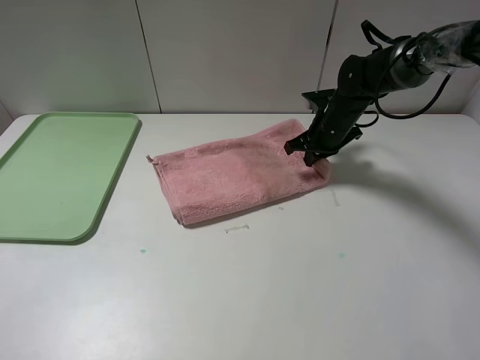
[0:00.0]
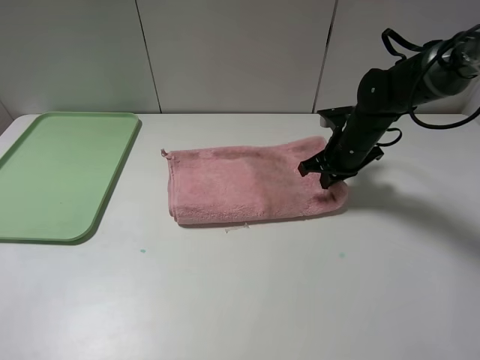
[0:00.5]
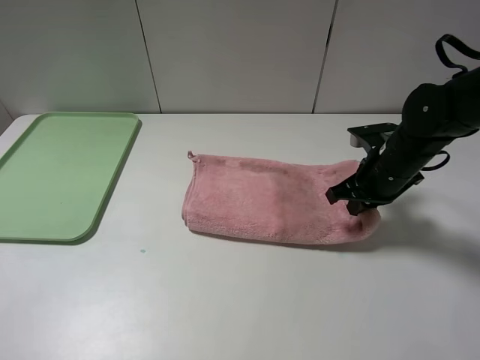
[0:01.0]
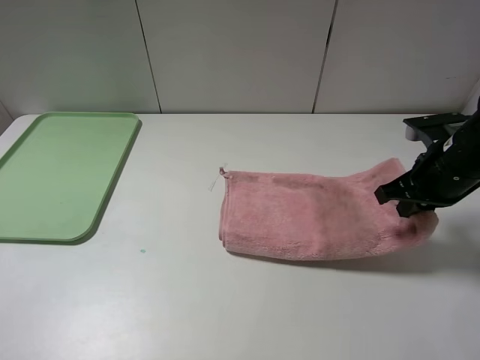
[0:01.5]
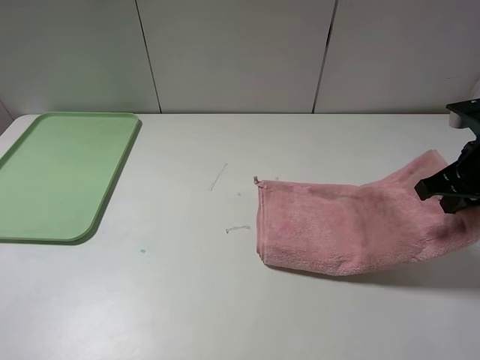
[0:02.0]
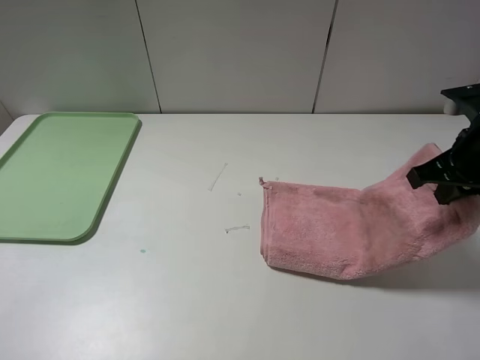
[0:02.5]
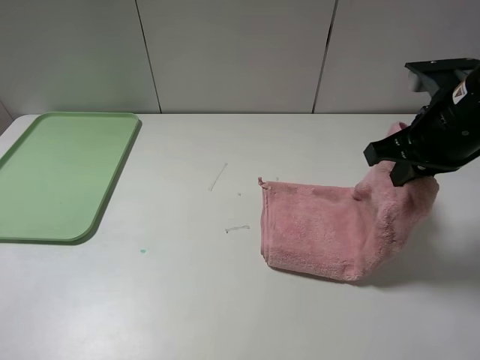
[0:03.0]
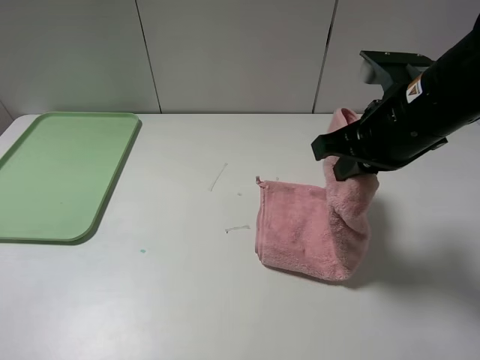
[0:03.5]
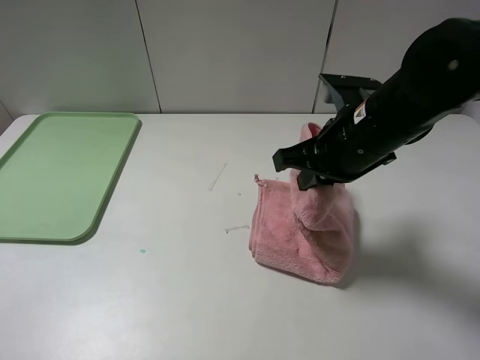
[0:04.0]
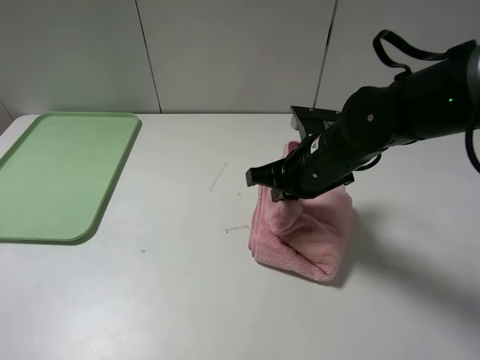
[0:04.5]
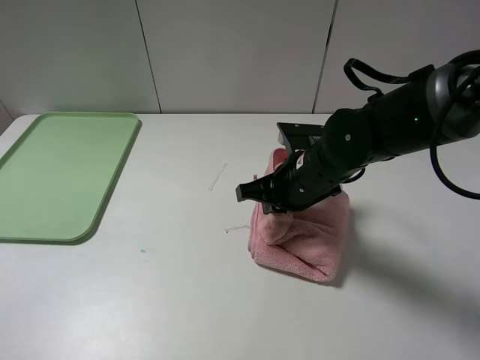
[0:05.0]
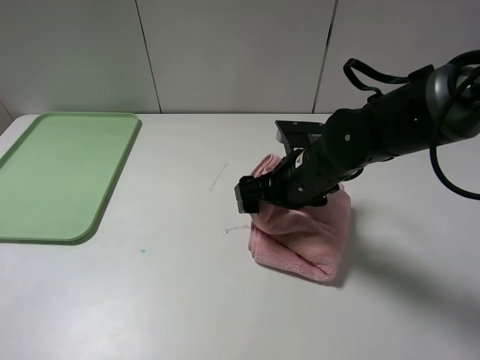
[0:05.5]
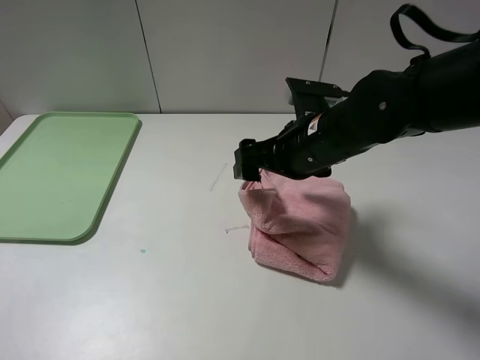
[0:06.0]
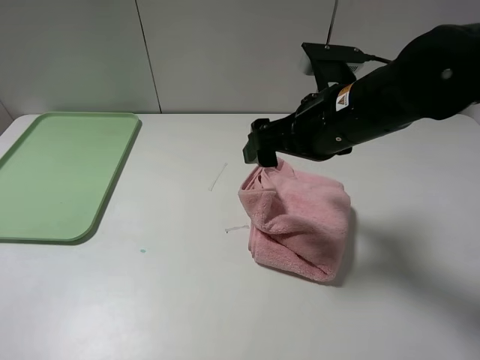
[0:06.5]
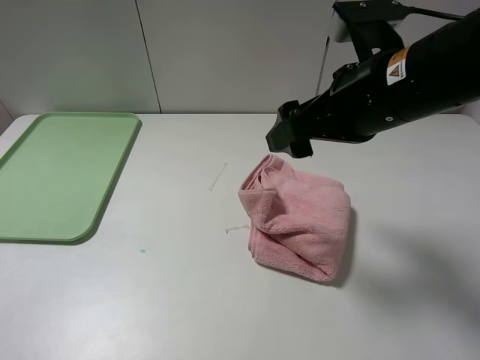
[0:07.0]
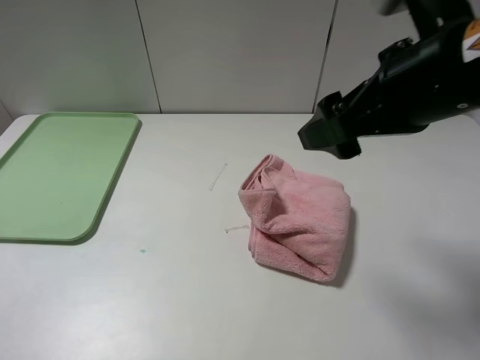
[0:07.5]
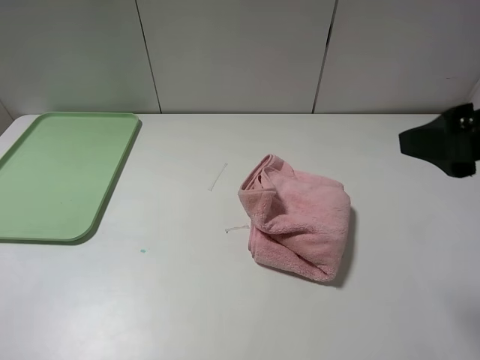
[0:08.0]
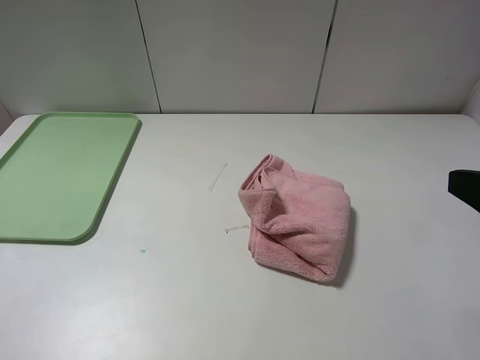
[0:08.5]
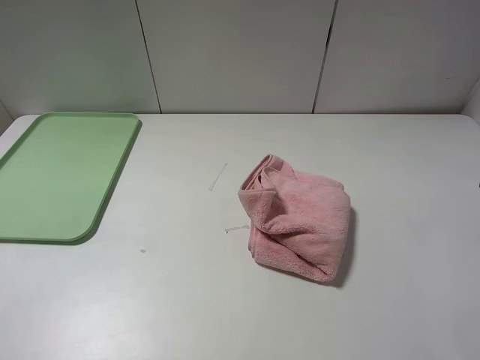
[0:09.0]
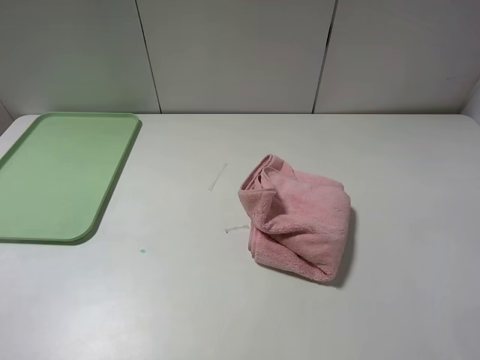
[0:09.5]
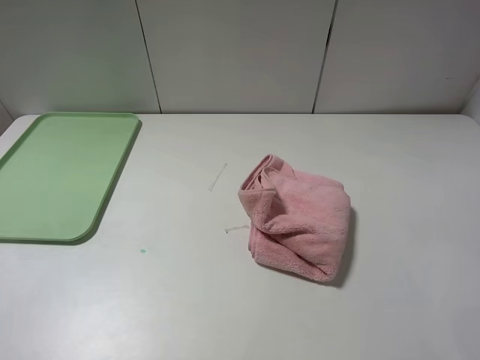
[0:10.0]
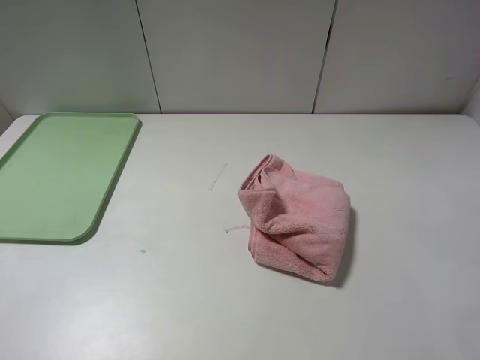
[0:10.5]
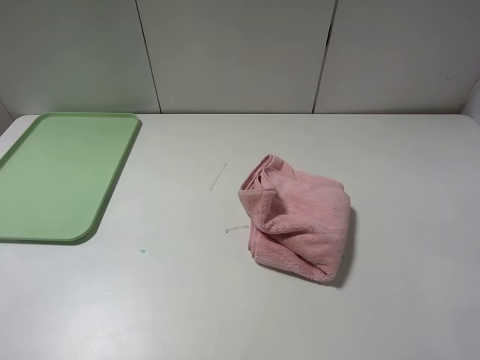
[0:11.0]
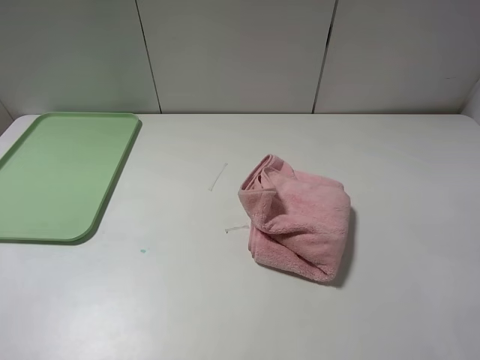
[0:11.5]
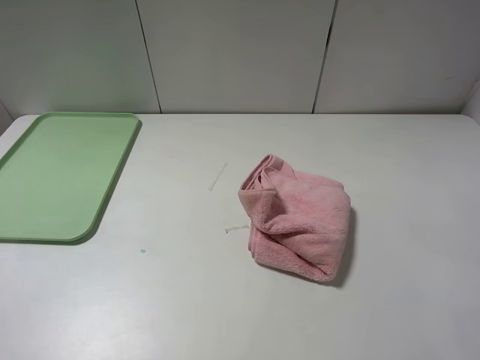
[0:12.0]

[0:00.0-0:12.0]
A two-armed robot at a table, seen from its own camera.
Step, 0:00.0 to 0:05.5: Fold the pink towel from right to left with right gripper.
0:00.0 to 0:02.0: The right gripper heads backward, to the right and upward, covering about 25 cm.
0:02.0 to 0:04.0: The right gripper heads to the left, covering about 15 cm.
0:04.0 to 0:06.0: The right gripper travels downward and back again, approximately 10 cm each way, and opens.
0:06.0 to 0:08.0: The right gripper travels to the right, backward and upward by about 25 cm.
0:08.0 to 0:10.0: The right gripper travels backward by roughly 15 cm.

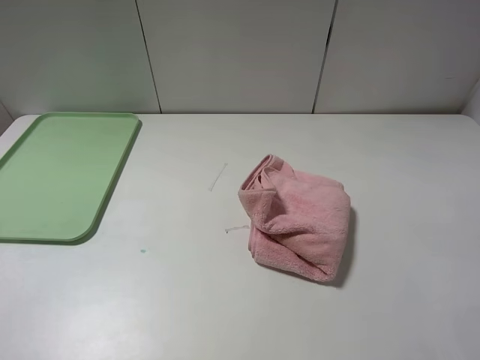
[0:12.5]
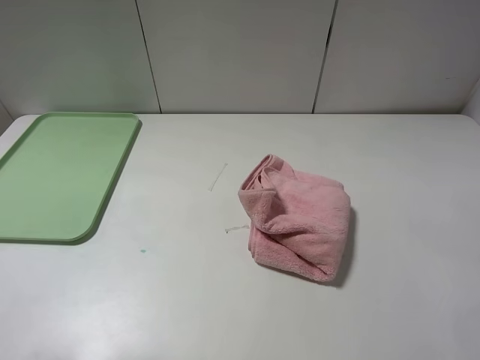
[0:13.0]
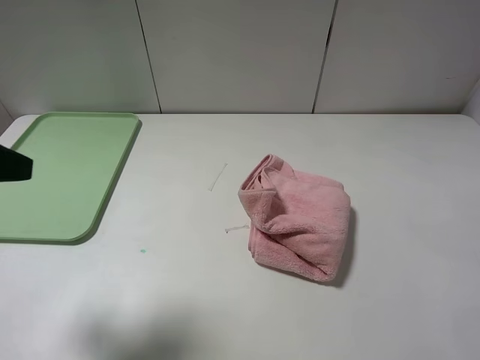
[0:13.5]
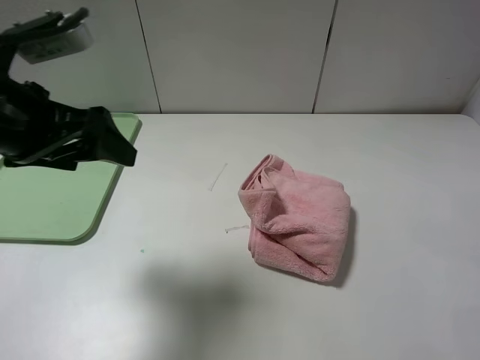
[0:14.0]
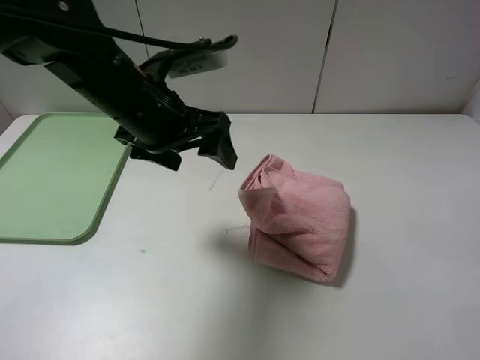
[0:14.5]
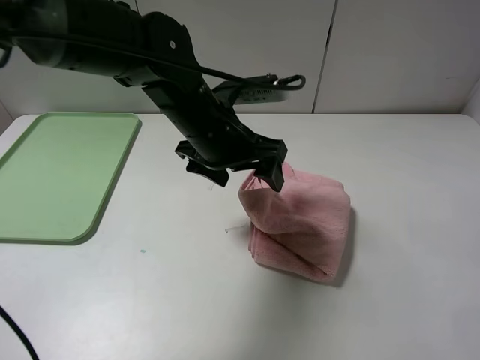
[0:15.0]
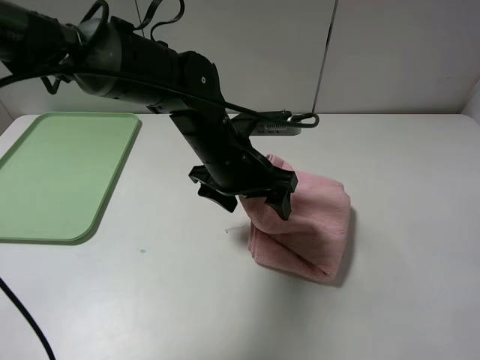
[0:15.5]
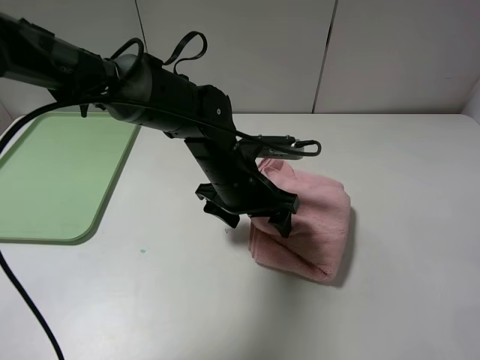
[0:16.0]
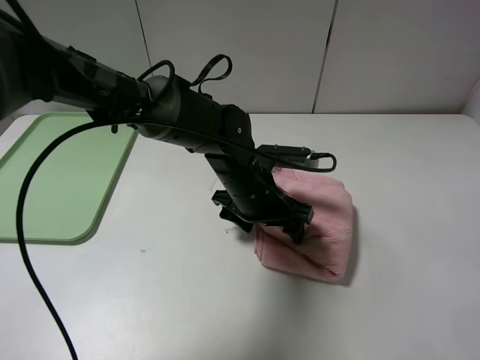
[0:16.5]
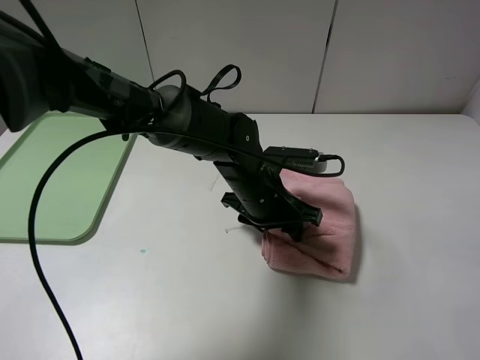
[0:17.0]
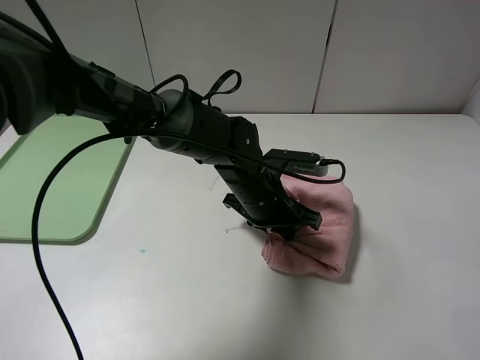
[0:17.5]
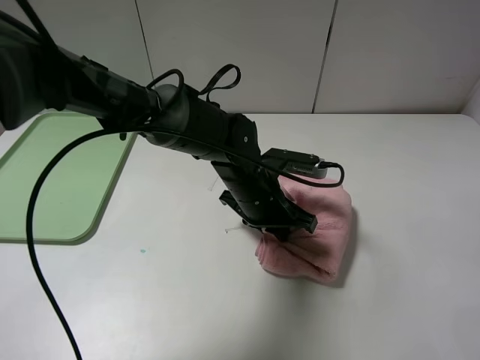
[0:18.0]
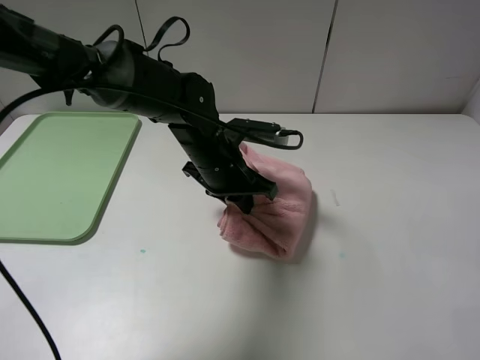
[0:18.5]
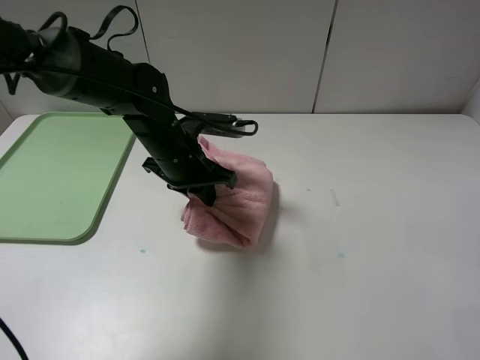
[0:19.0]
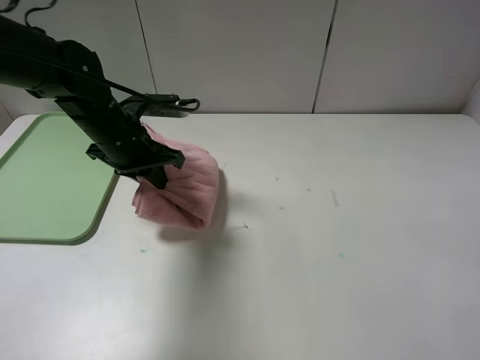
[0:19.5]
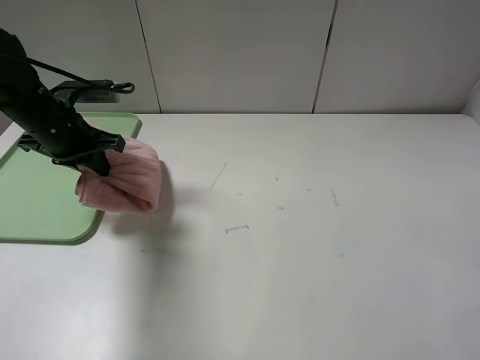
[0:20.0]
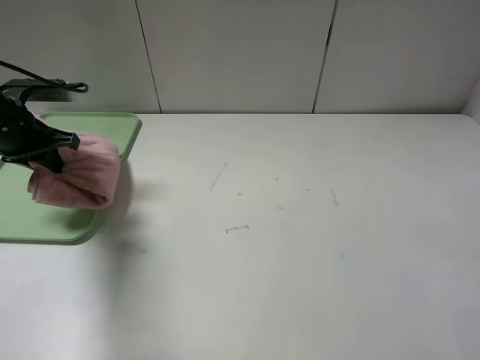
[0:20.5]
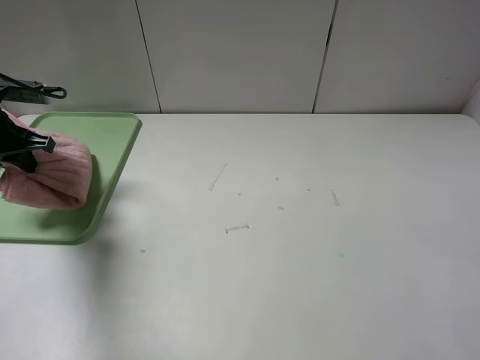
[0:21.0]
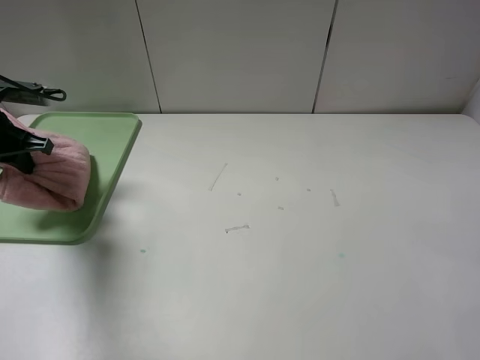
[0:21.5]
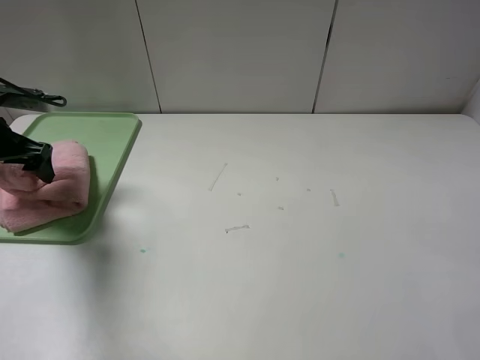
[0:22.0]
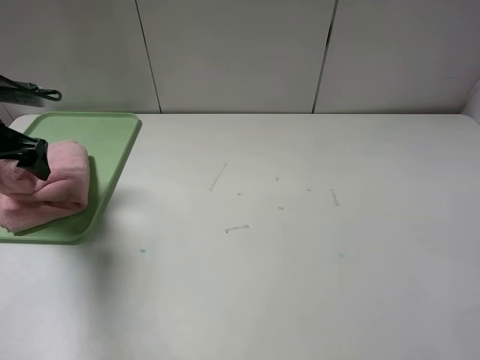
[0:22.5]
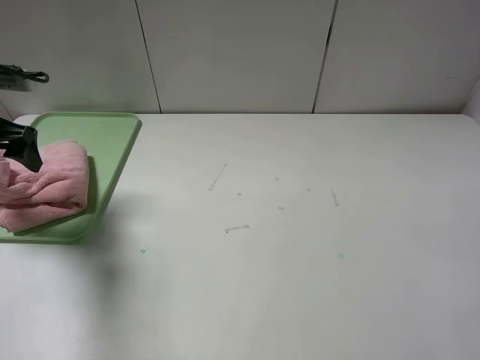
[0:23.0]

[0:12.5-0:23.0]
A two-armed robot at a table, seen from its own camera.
0:12.5 to 0:14.5: The left gripper goes some 35 cm forward and to the right.
0:14.5 to 0:16.5: The left gripper travels downward and to the right by roughly 20 cm.
0:16.5 to 0:19.0: The left gripper travels to the left by some 10 cm, and closes up.
0:19.0 to 0:21.0: The left gripper heads to the left, covering roughly 25 cm.
0:21.0 to 0:23.0: The left gripper changes place by roughly 5 cm, and opens.

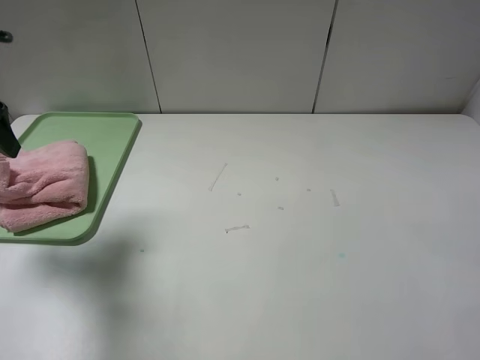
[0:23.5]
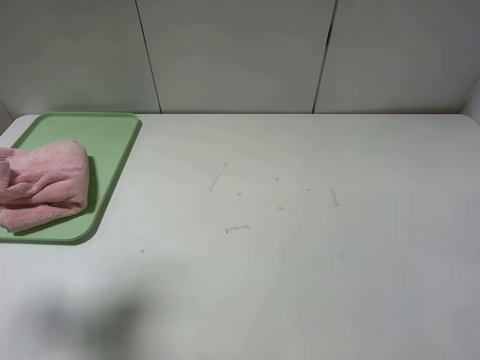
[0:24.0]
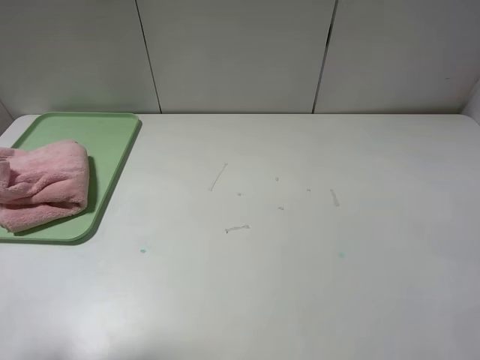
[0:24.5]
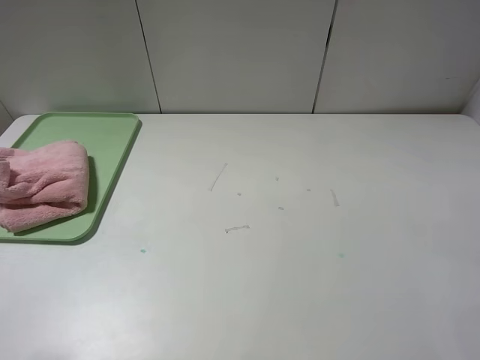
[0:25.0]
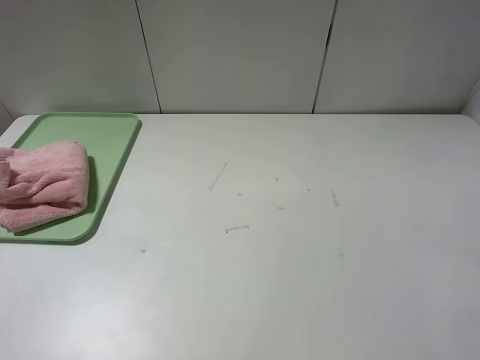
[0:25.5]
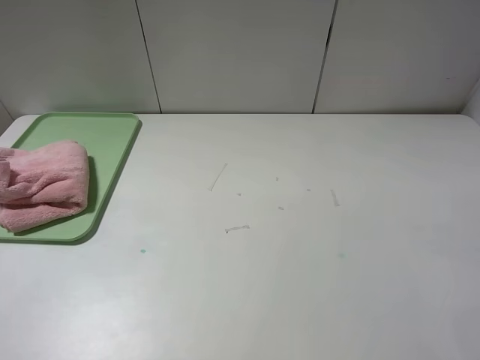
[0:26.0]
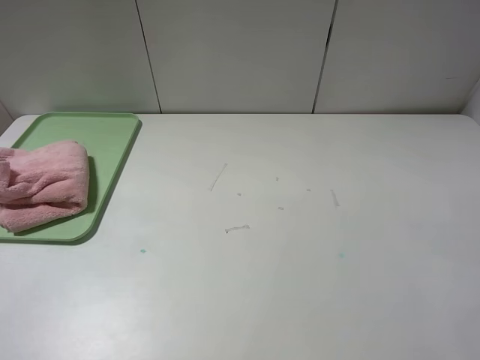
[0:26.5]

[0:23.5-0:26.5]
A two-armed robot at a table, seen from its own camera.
0:23.5 to 0:25.0: The left gripper travels backward by about 20 cm.
